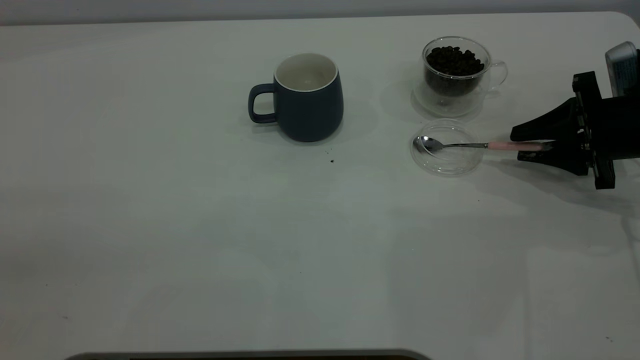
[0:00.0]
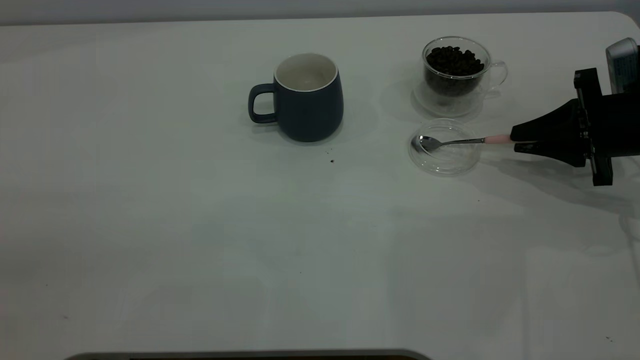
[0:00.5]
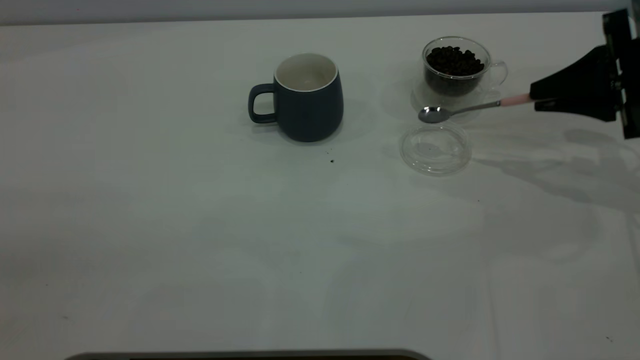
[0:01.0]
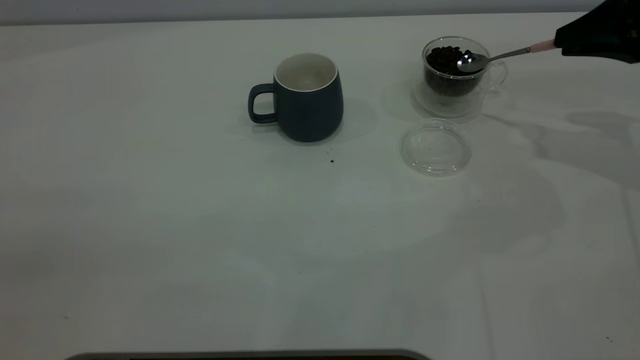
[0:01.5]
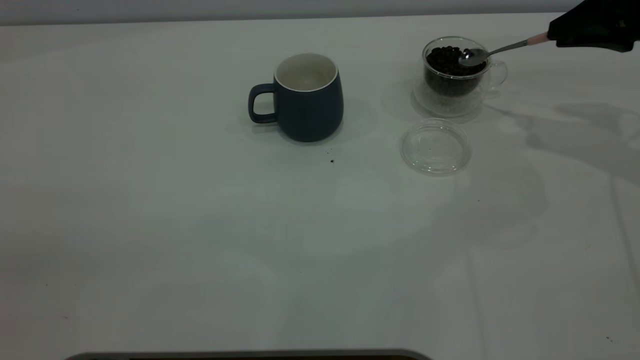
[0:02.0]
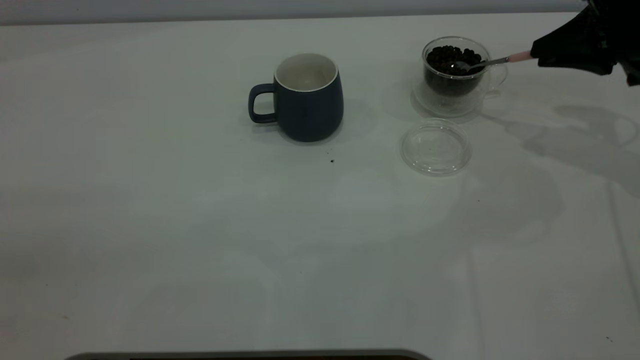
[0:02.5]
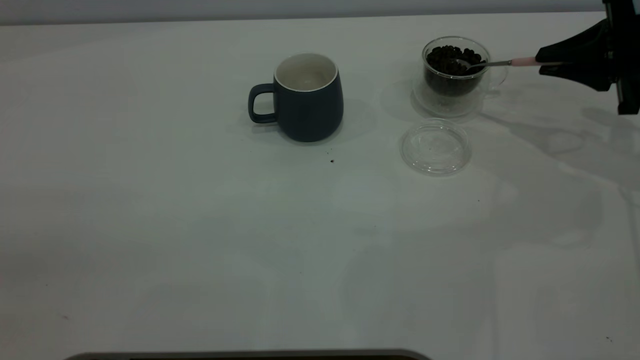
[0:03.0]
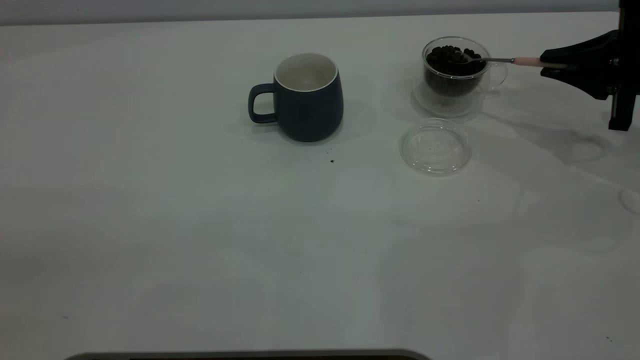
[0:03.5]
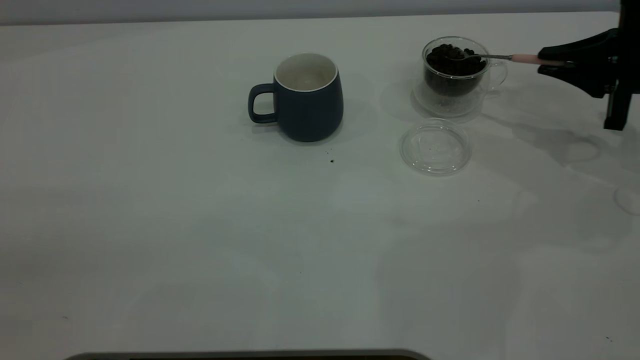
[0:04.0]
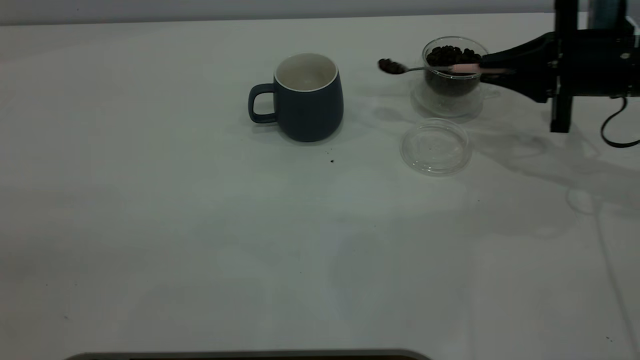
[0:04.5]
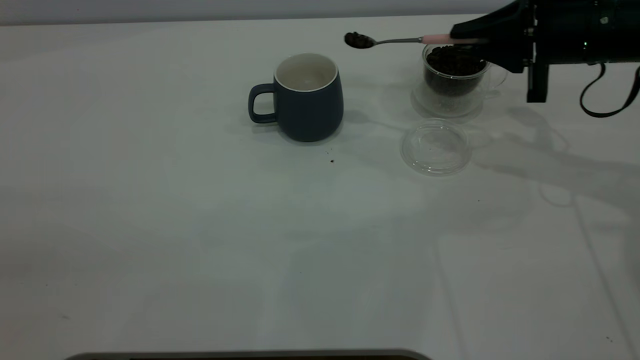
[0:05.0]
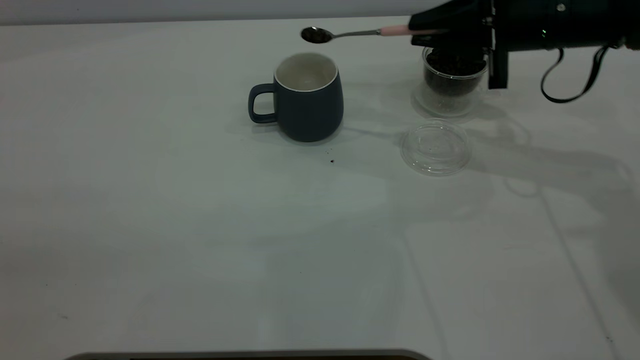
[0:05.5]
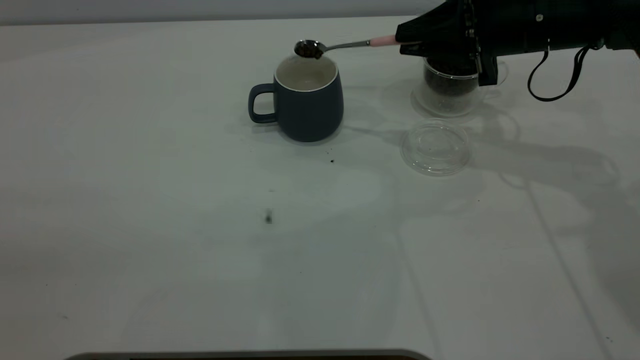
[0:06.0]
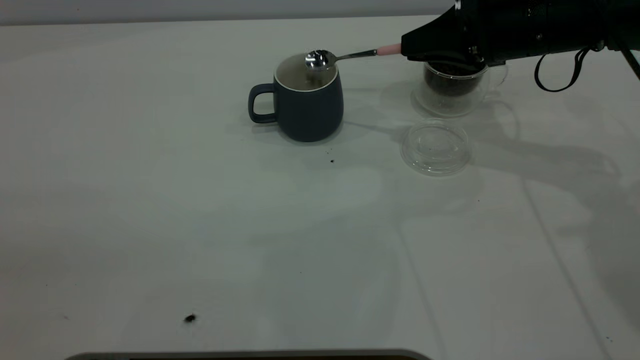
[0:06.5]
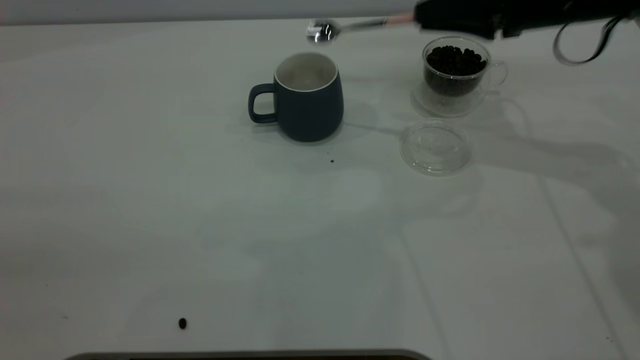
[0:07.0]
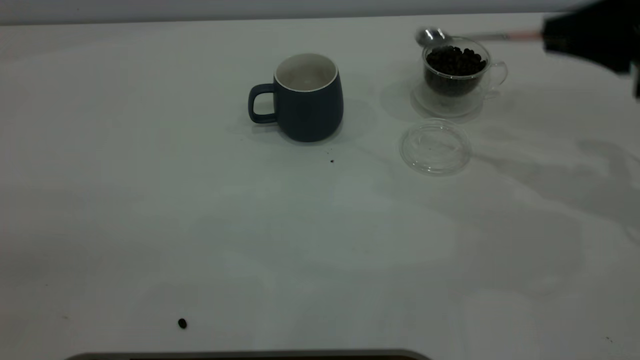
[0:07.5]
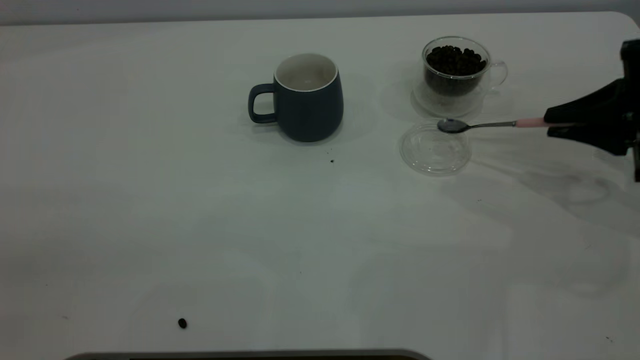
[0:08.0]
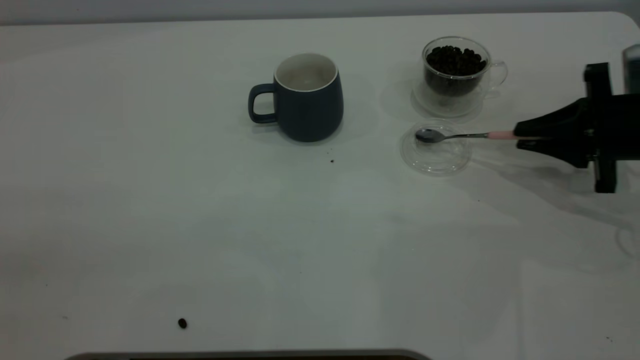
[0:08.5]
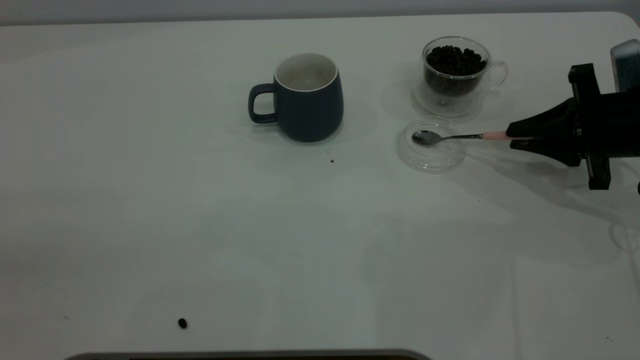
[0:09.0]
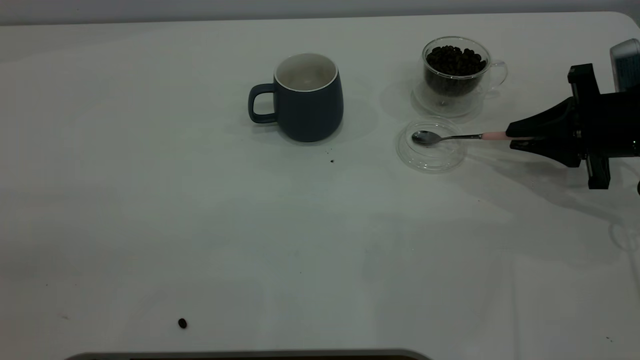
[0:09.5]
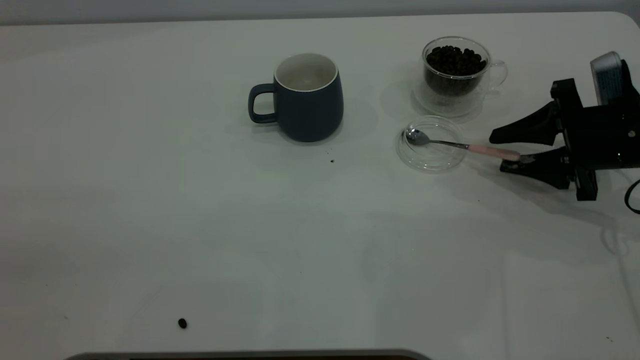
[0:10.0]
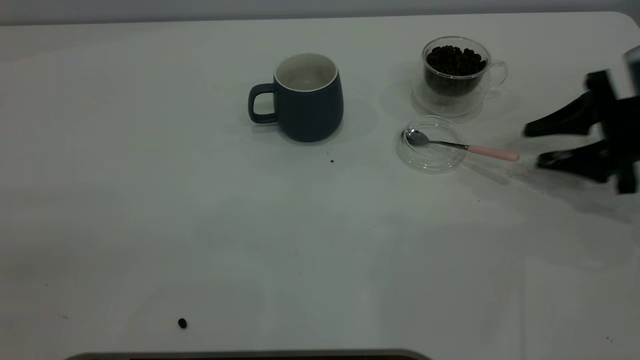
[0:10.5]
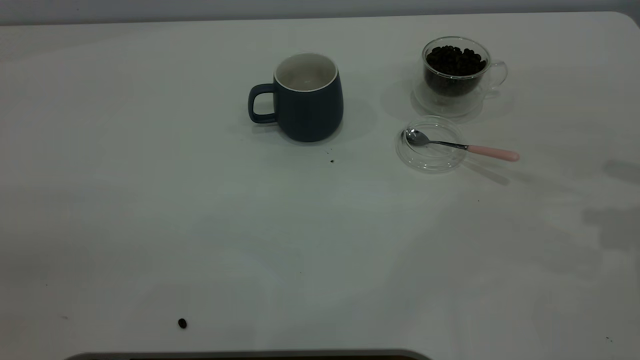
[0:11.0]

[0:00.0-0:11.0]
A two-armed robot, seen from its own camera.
Task of the whole recording: the left gripper place the grey cup in the center of the table, the right gripper take the pink spoon from the cup lid and scoop out the coffee beans from the coffee cup and put them into the grey cup, the right gripper put the spoon back into the cup lid.
Step, 0:01.5 to 0:07.0: Scoop a spoonful of beans into the cup.
Step, 0:07.5 to 0:10.5: Place the spoon back in its original place.
0:00.0 to 0:02.0: The right gripper heads upward, covering approximately 10 cm, and closes up.
0:02.0 to 0:03.5: The right gripper is displaced downward by about 5 cm.
0:03.5 to 0:05.5: The right gripper shifts some 15 cm to the left.
0:05.5 to 0:07.5: The right gripper travels to the right and backward by roughly 15 cm.
0:07.5 to 0:09.0: The right gripper is displaced downward by approximately 10 cm.
0:09.0 to 0:11.0: The right gripper heads upward, covering about 15 cm, and opens up.
